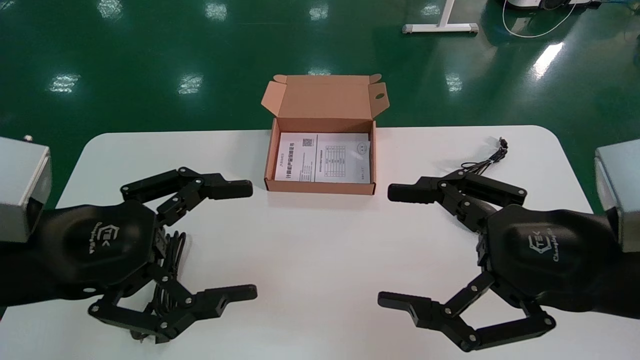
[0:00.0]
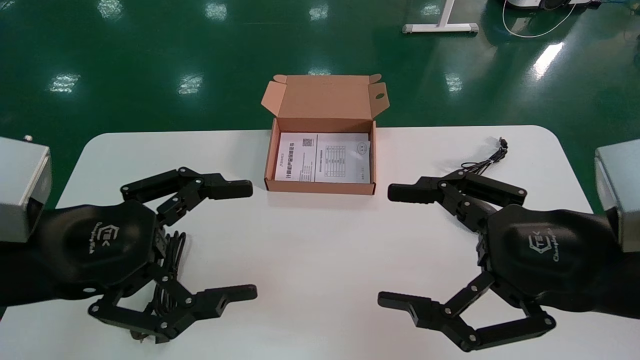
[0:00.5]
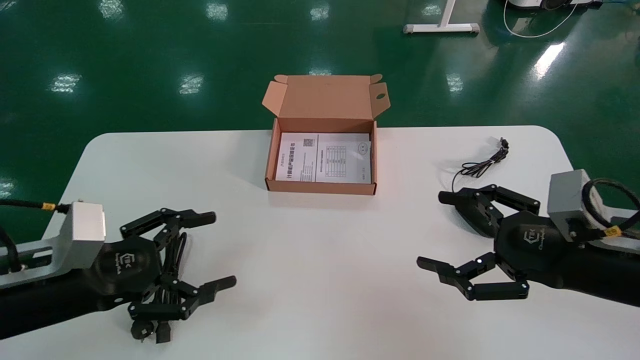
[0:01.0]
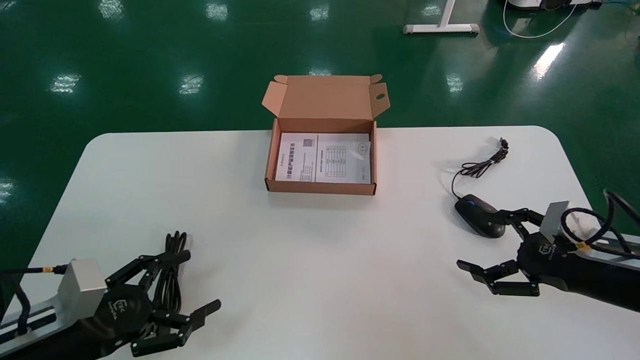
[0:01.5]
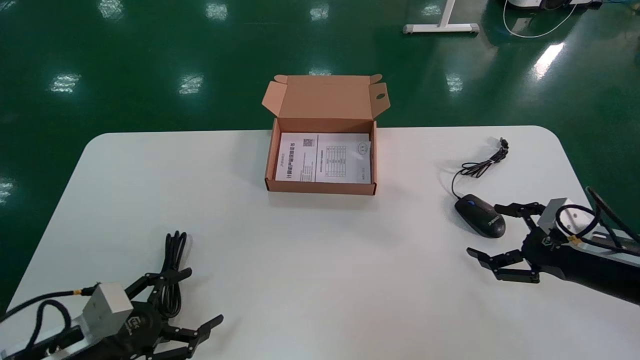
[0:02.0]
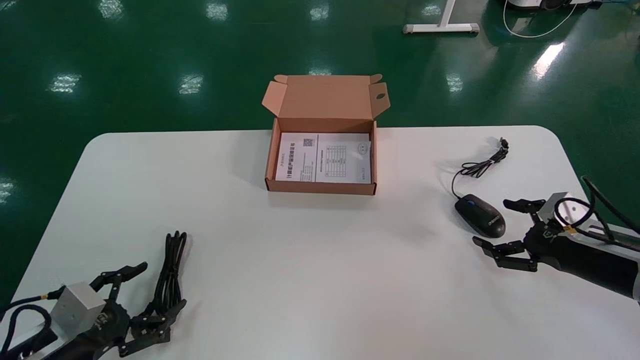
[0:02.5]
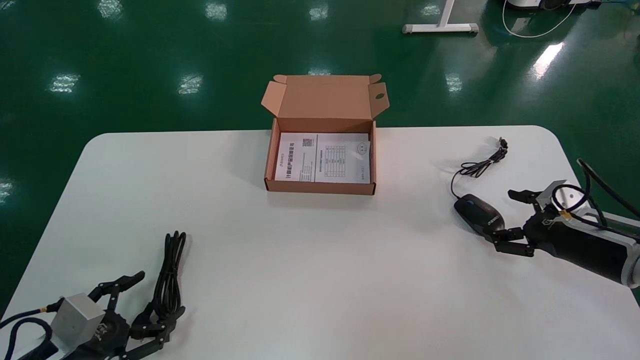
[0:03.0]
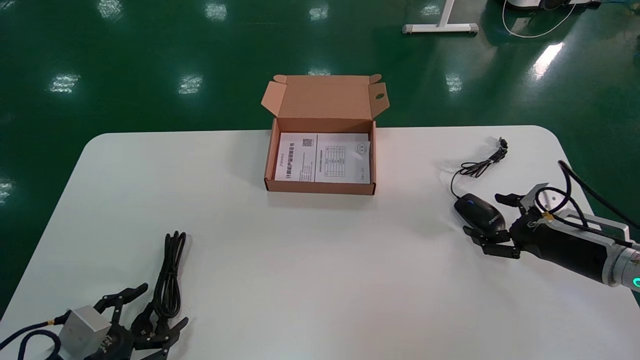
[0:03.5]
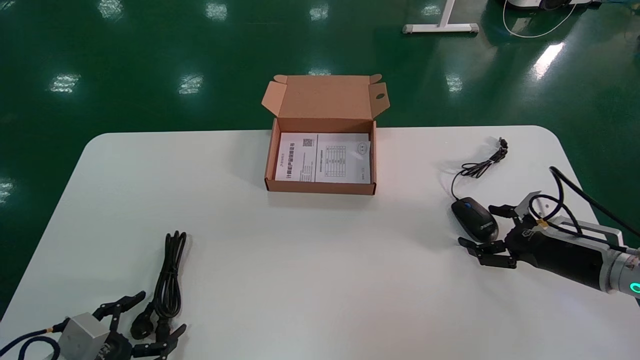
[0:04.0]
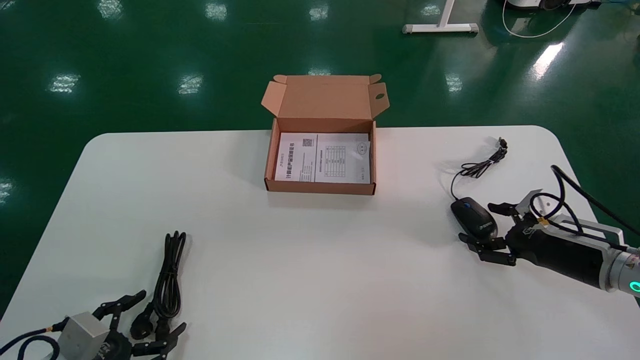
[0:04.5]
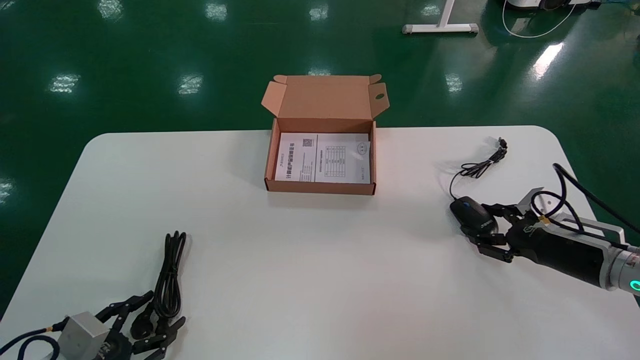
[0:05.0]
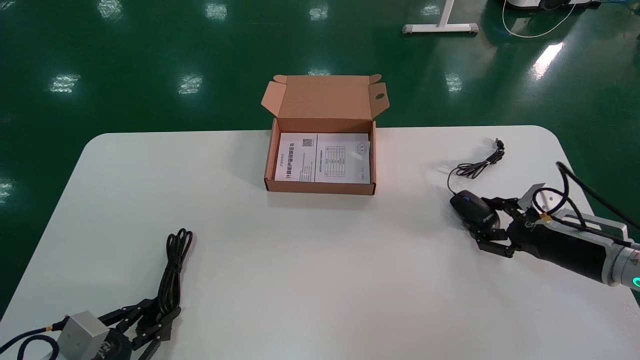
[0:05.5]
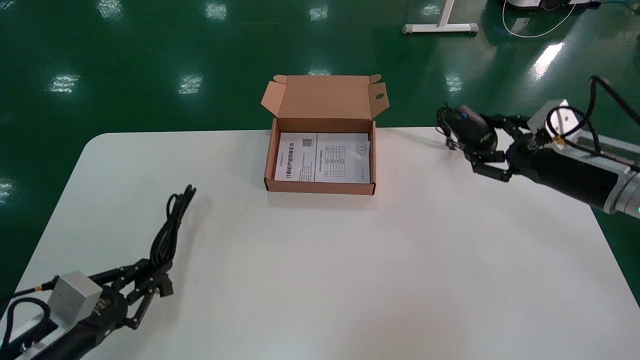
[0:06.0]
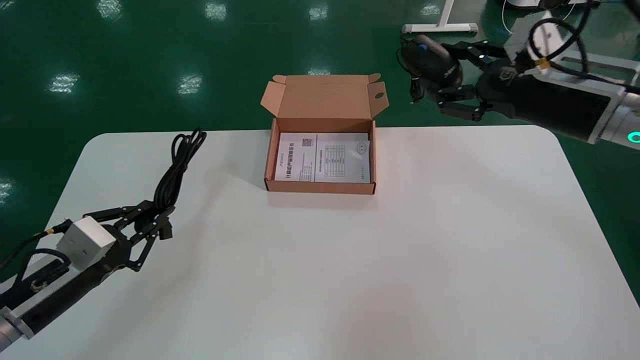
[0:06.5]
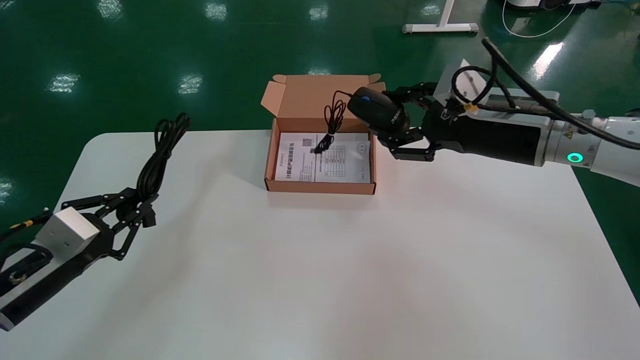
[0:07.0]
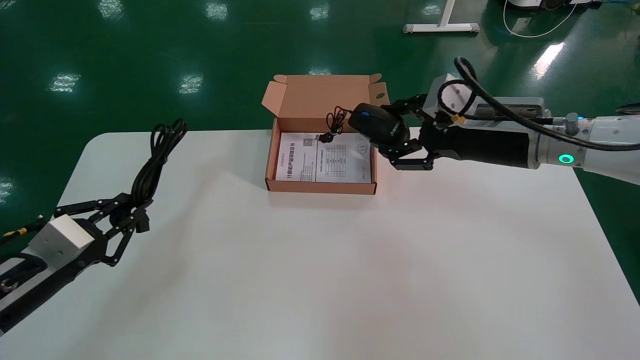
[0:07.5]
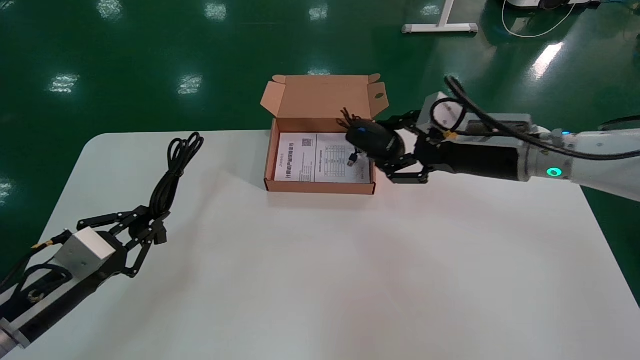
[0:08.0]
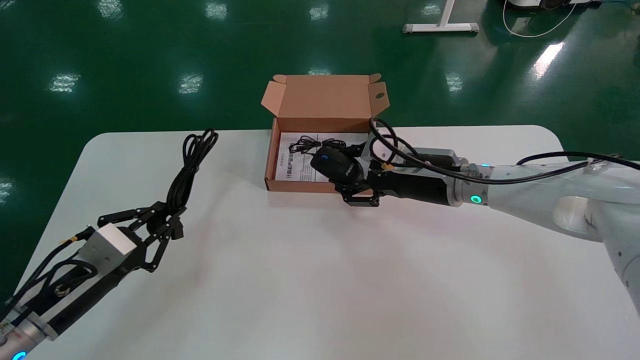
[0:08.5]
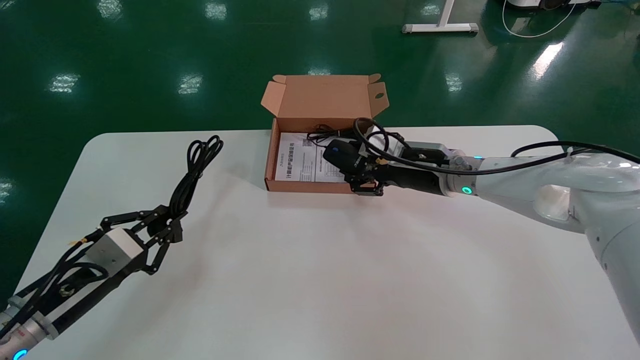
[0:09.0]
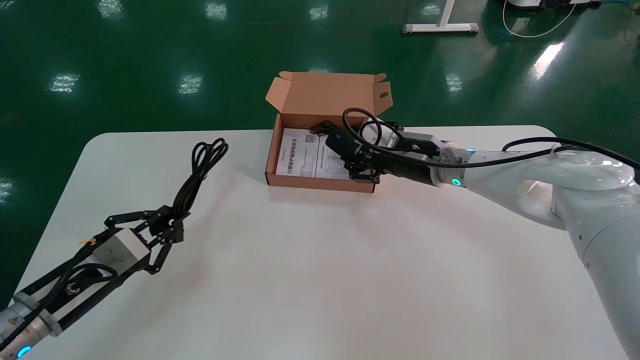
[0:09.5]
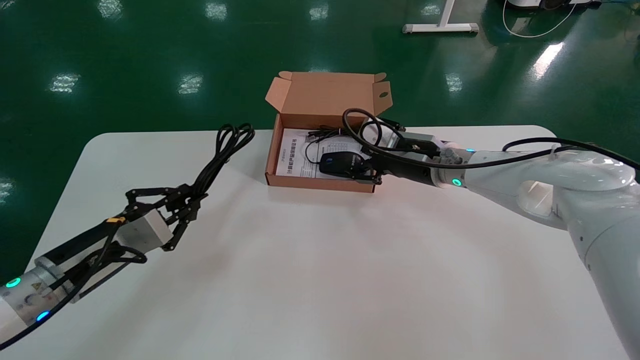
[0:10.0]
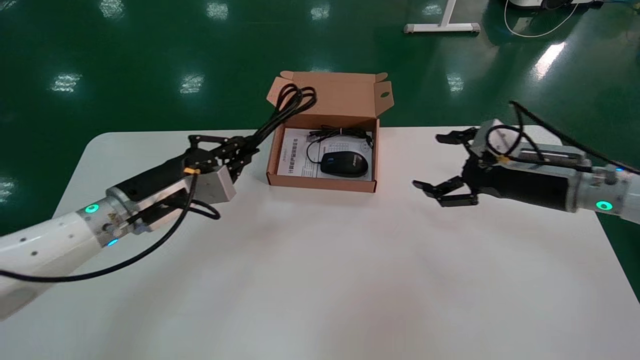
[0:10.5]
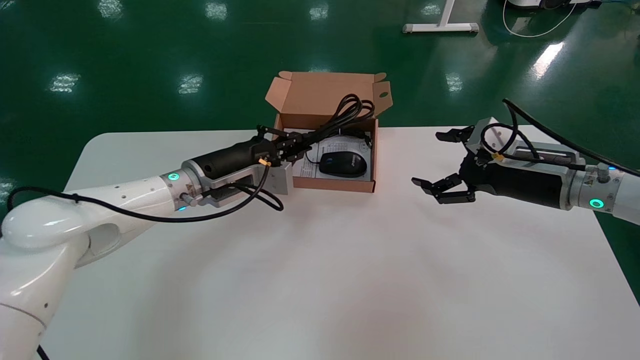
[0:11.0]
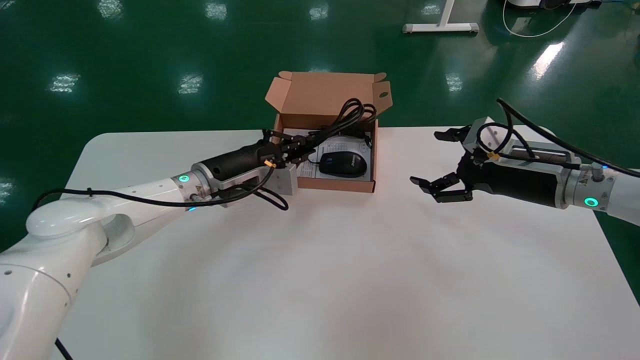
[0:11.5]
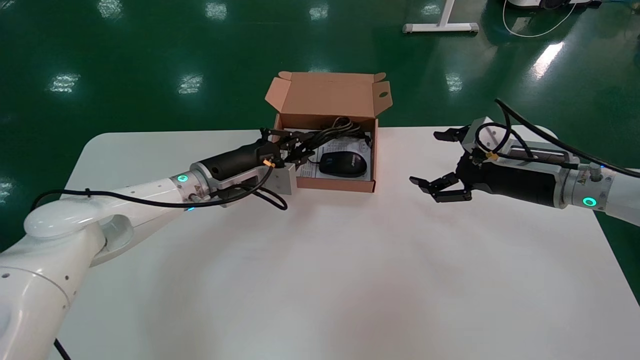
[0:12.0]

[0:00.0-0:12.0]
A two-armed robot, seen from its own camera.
Step, 0:01.5 to 0:05.5: Grab and pick up the mouse and power cord from the accessory packaging area.
0:00.0 to 0:02.0: The right gripper is displaced forward, to the right and downward by roughly 25 cm, while the left gripper moves downward, approximately 20 cm.
0:02.0 to 0:04.0: The right gripper shifts about 5 cm forward; the left gripper heads downward, covering roughly 5 cm.
0:04.0 to 0:06.0: The left gripper heads upward, covering some 5 cm, and closes up; the right gripper travels upward by roughly 15 cm, and closes its fingers.
0:06.0 to 0:08.0: The left gripper shifts roughly 5 cm upward. Meanwhile the right gripper travels to the left by some 15 cm.
0:08.0 to 0:10.0: The right gripper travels forward and to the left by about 10 cm. Meanwhile the left gripper travels to the right by roughly 5 cm.
0:10.0 to 0:12.0: The left gripper travels forward, to the right and upward by about 20 cm. Meanwhile the right gripper shifts approximately 15 cm to the right and backward, and opens.

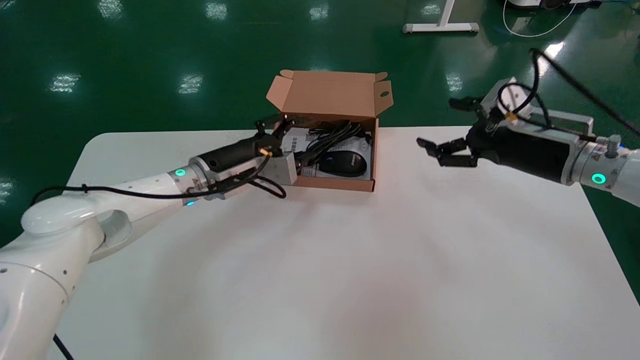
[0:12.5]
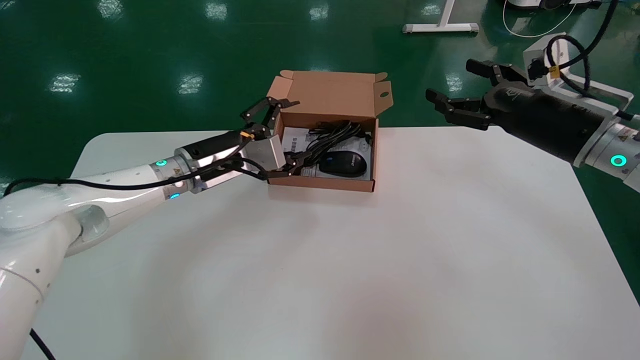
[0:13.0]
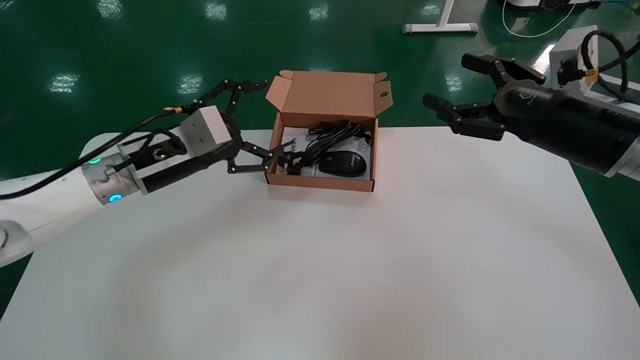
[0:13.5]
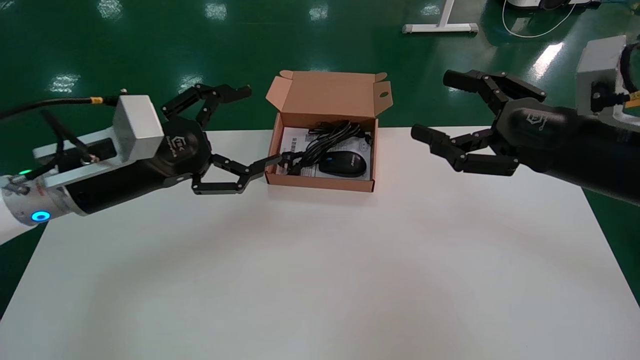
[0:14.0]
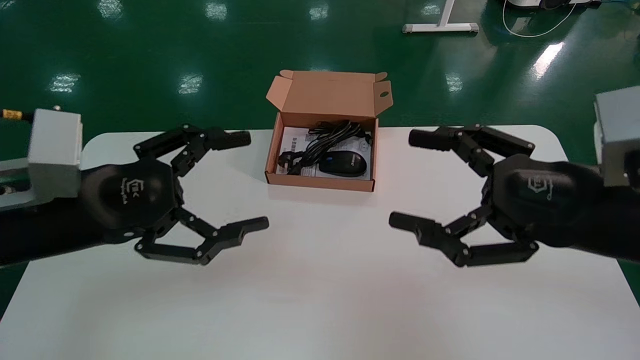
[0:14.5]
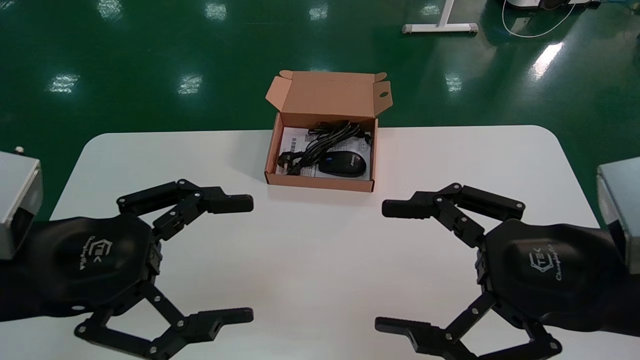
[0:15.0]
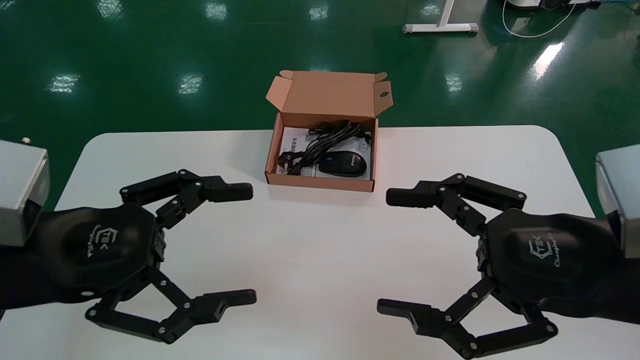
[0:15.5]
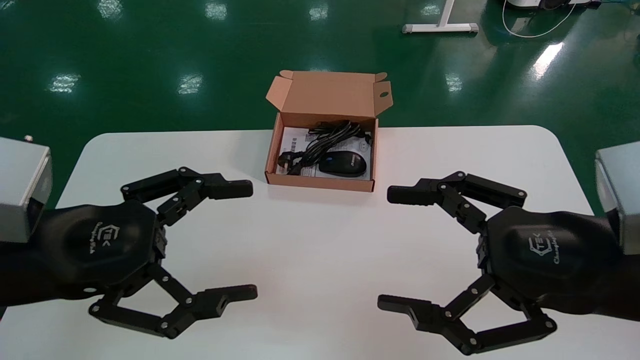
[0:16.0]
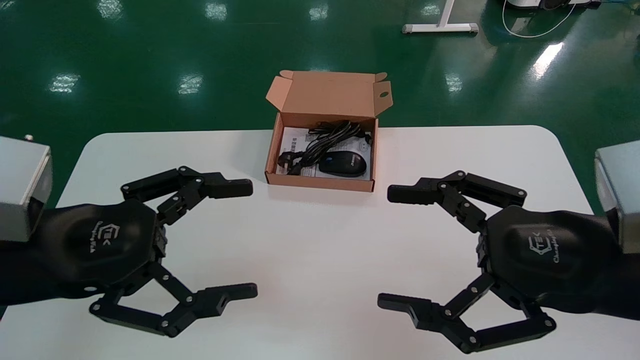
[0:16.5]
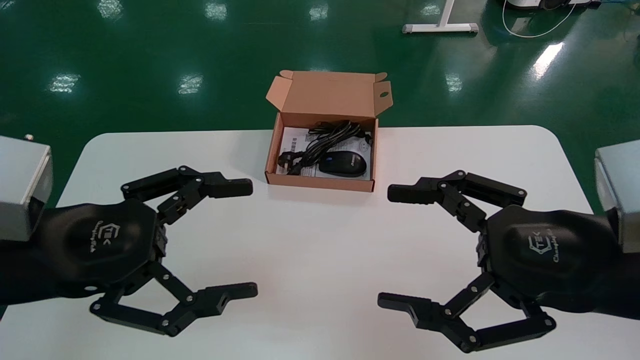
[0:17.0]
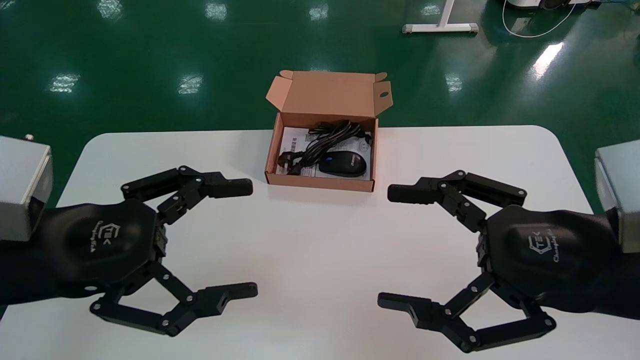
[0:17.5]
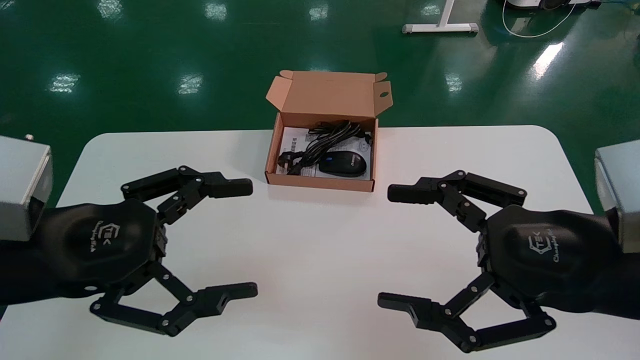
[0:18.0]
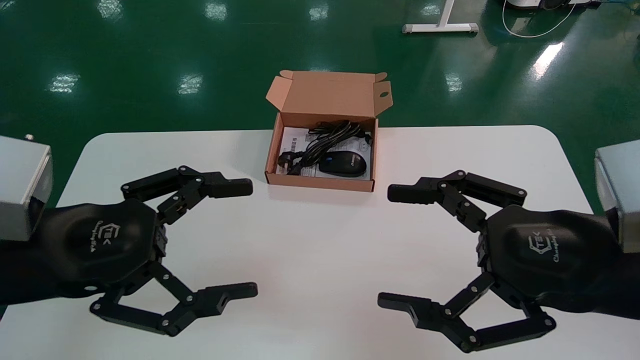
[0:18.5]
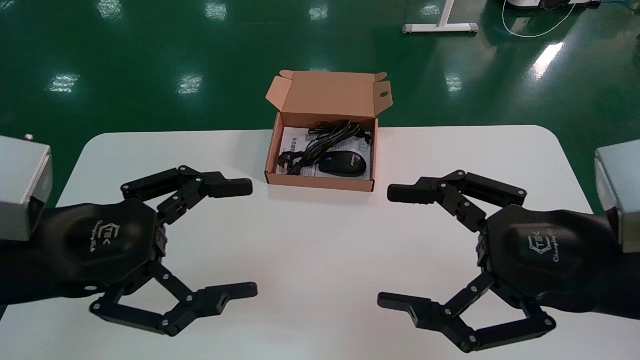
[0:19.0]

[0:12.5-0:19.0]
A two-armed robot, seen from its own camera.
0:12.5 to 0:14.5: The left gripper moves backward and to the left, roughly 25 cm, and opens its fingers. Meanwhile the right gripper goes about 20 cm backward.
0:17.0 to 0:19.0: Neither gripper changes place.
